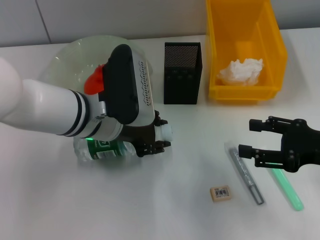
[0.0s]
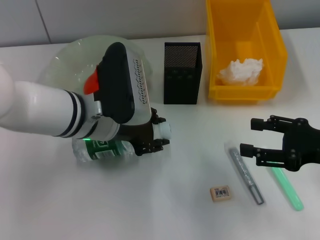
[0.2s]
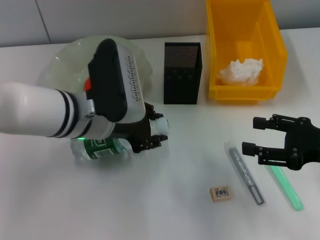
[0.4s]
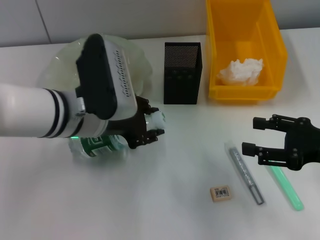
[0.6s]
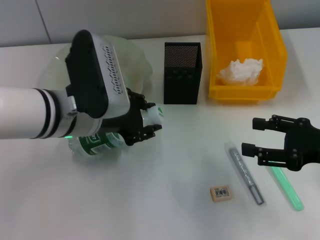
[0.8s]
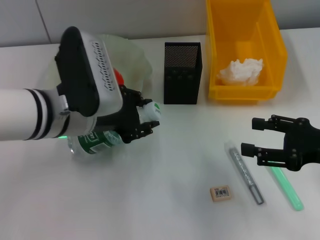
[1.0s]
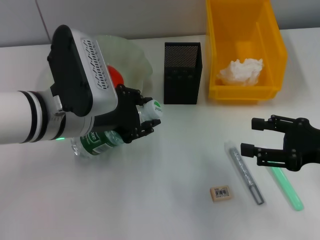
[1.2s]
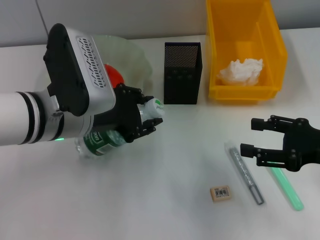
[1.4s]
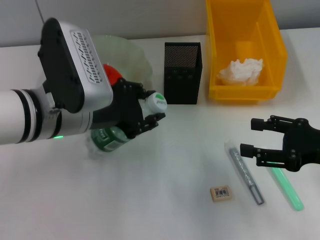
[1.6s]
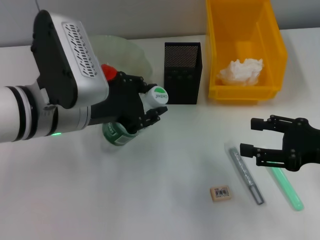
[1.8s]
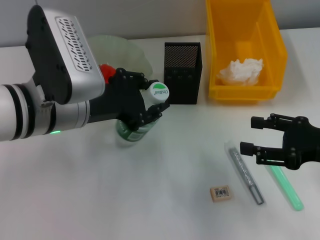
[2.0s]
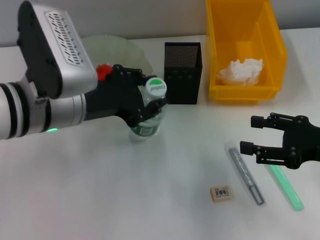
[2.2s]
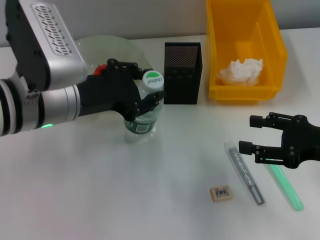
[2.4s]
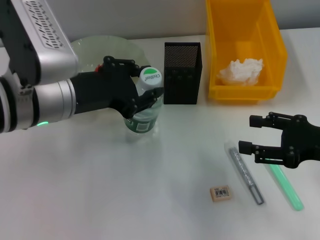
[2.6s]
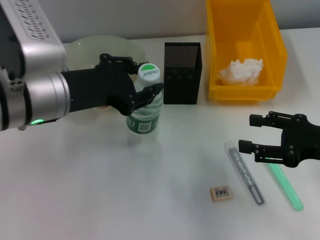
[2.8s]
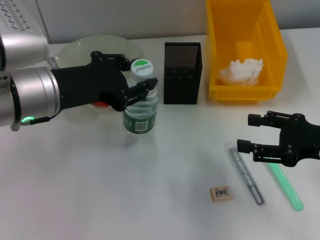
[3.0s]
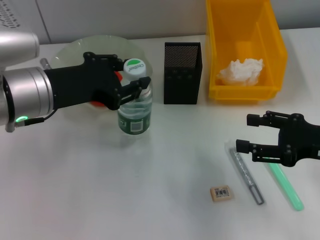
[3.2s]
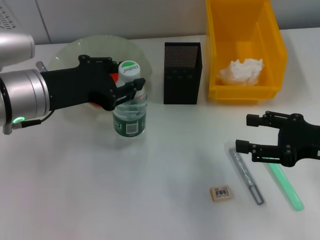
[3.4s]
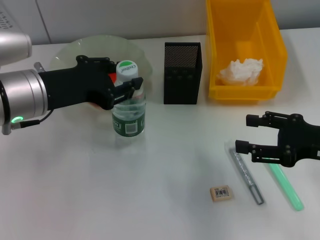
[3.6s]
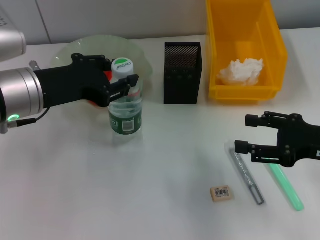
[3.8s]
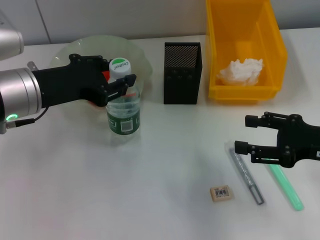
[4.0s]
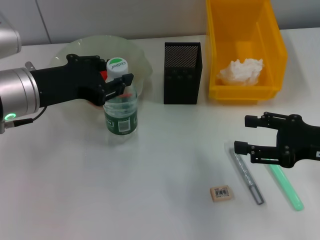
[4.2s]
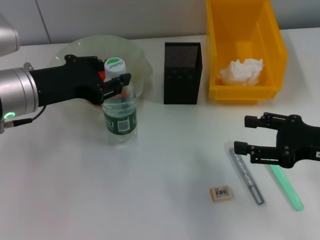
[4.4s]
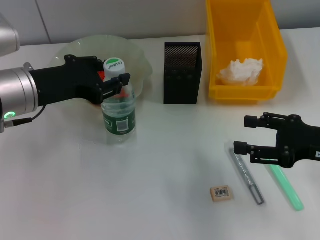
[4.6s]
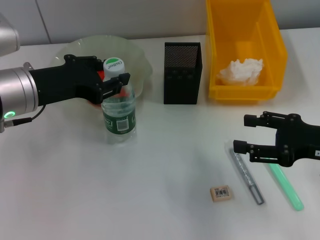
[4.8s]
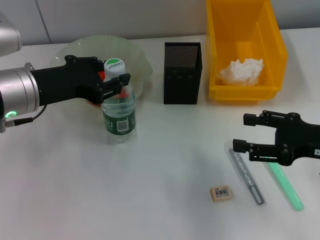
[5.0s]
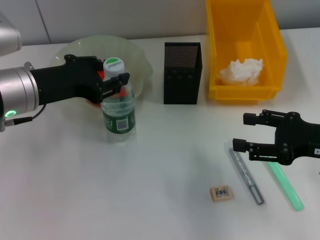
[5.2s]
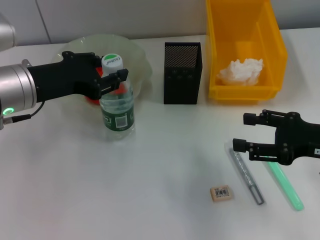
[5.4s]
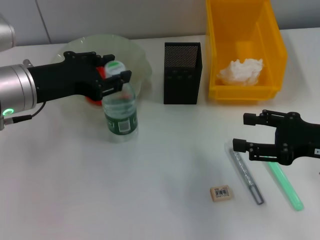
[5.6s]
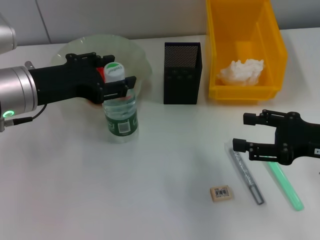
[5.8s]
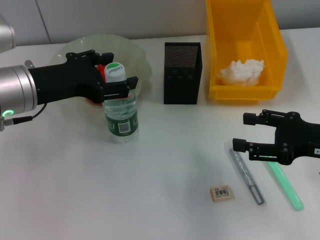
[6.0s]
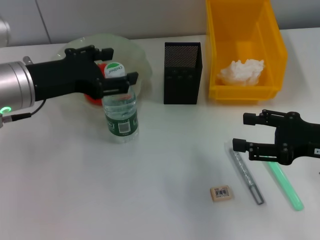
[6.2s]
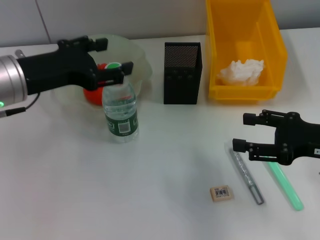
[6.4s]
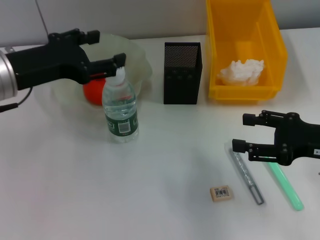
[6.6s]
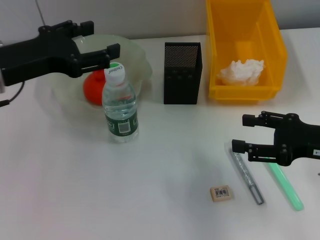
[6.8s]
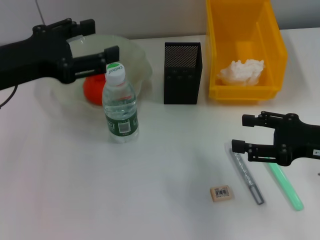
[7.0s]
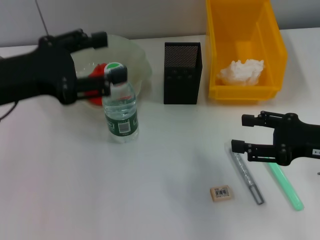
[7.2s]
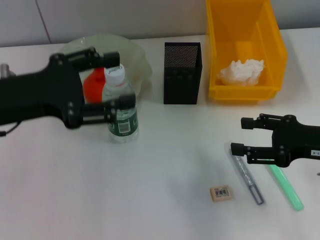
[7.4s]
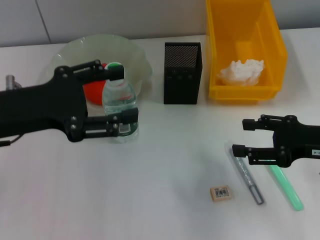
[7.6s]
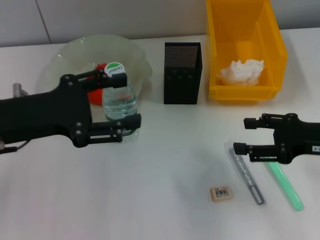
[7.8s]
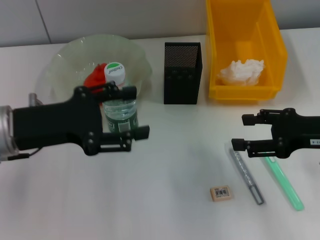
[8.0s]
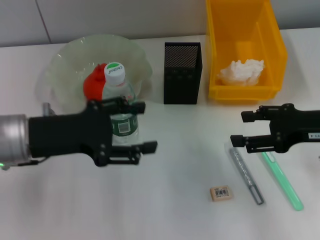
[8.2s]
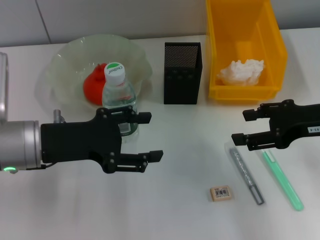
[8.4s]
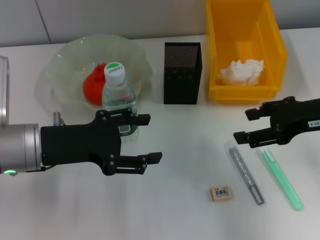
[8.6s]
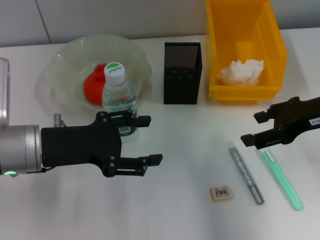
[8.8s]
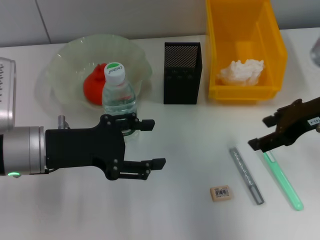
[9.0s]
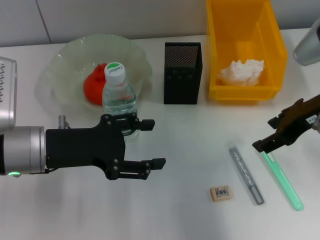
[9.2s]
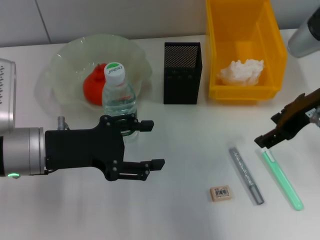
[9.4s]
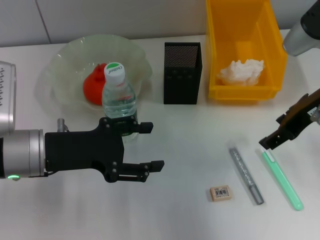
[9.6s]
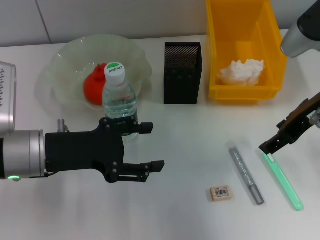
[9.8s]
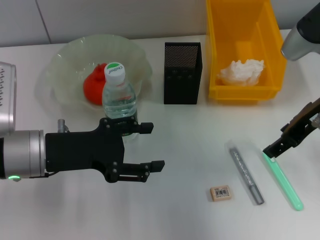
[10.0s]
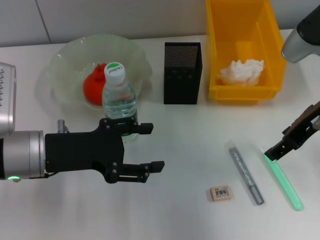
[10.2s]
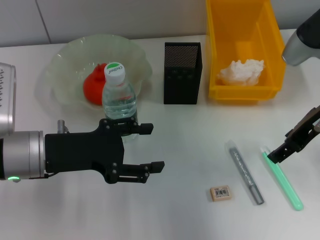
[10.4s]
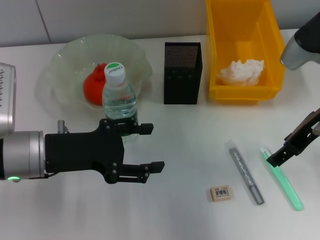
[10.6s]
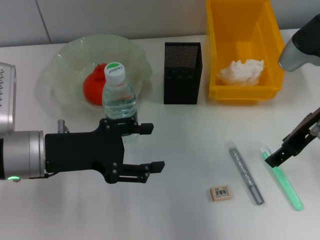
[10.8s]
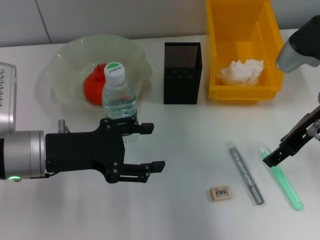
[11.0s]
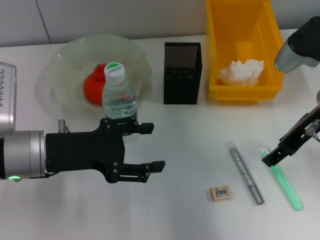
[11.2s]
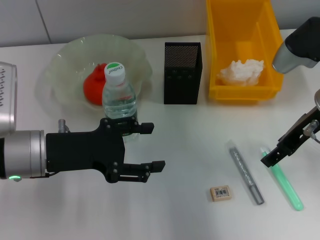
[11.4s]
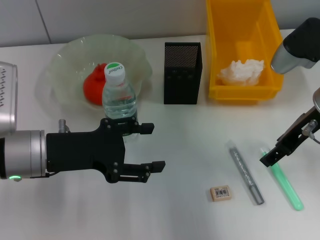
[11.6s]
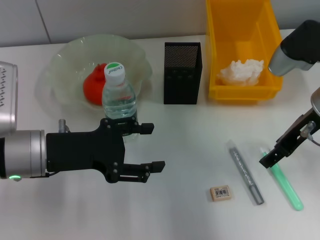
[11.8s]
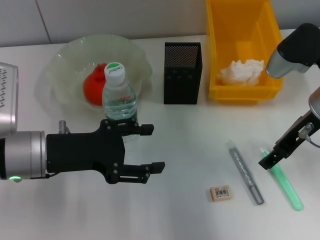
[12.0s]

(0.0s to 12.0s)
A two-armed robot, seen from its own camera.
Step, 0.0s - 6.4s: Place the water bottle on the table with the left hand.
0.0s - 1.6s: The left gripper ends up some 5 cm from where it was.
1.6s - 3.0s: There are only small adjustments of the grippers.
3.0s - 4.4s: There are only small adjustments of the grippers.
4.4s - 6.0s: The left gripper opens.
6.0s - 7.6s: The left gripper changes place by some 5 cm.
7.6s - 9.0s: The right gripper shifts roughly 10 cm upward and forward, while the left gripper goes roughly 5 cm downward.
9.0s - 10.4s: The grippers make only small movements.
10.4s - 12.0s: The grippers move only a little.

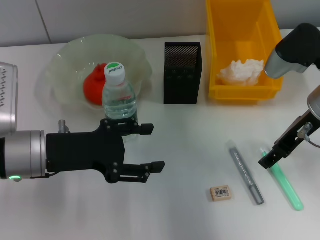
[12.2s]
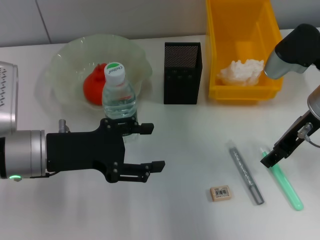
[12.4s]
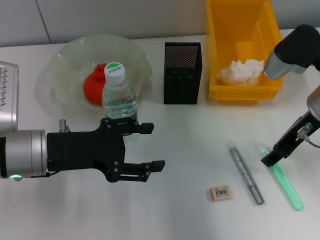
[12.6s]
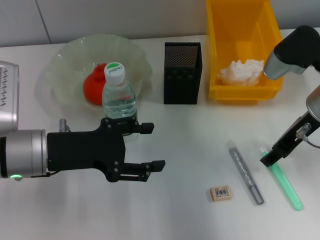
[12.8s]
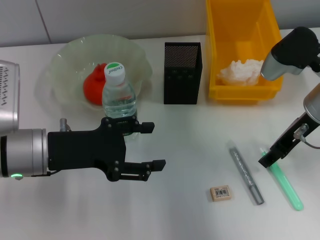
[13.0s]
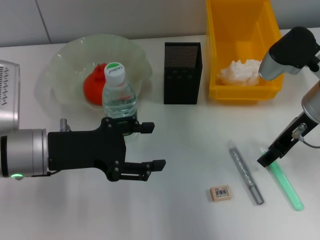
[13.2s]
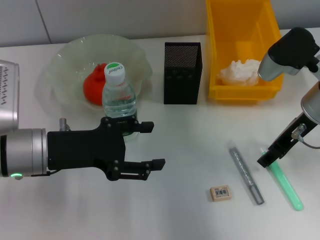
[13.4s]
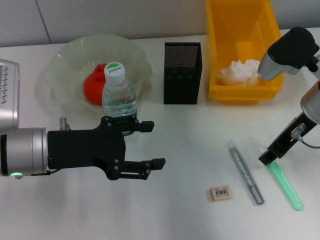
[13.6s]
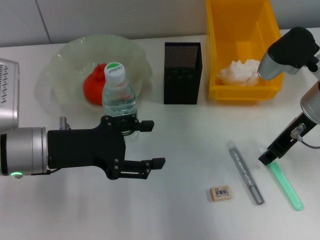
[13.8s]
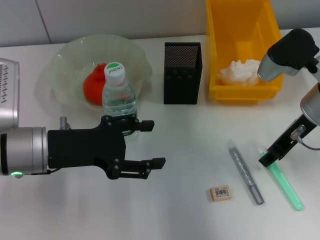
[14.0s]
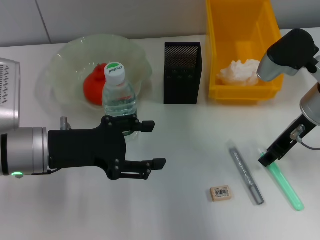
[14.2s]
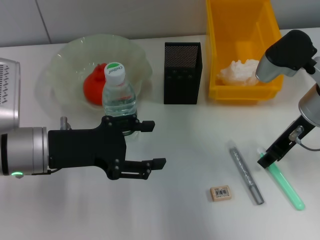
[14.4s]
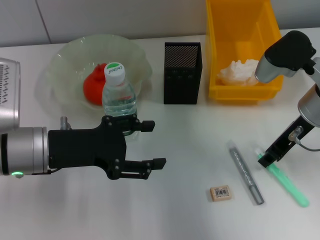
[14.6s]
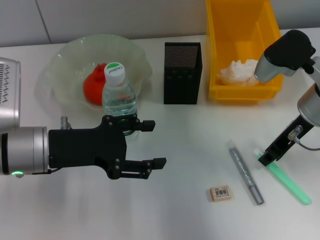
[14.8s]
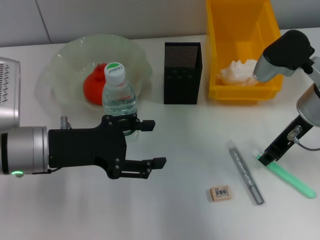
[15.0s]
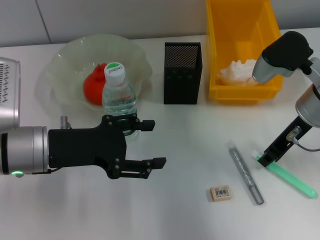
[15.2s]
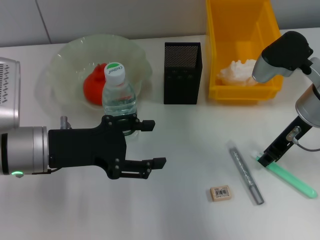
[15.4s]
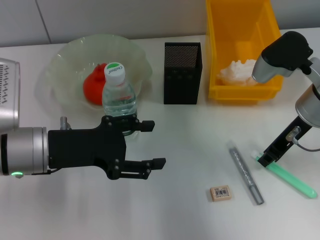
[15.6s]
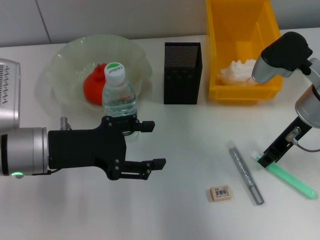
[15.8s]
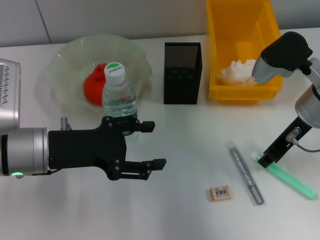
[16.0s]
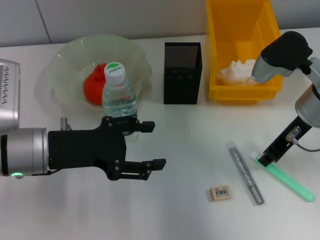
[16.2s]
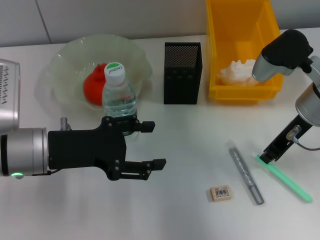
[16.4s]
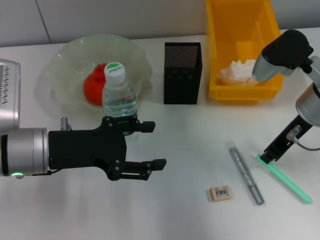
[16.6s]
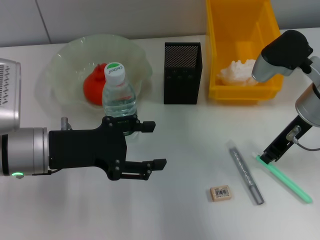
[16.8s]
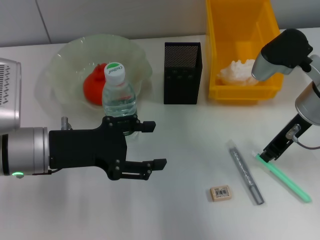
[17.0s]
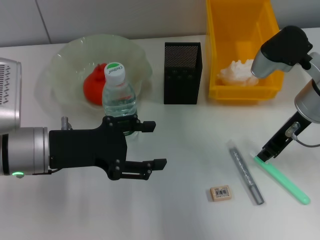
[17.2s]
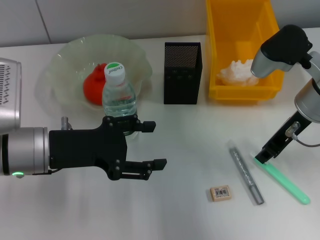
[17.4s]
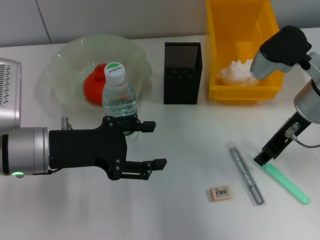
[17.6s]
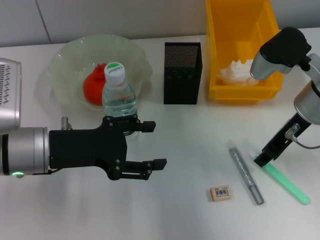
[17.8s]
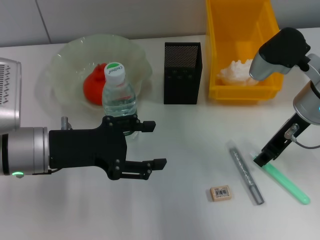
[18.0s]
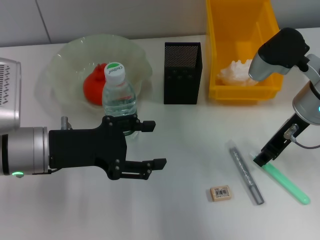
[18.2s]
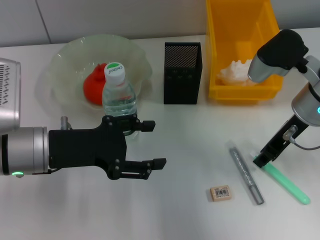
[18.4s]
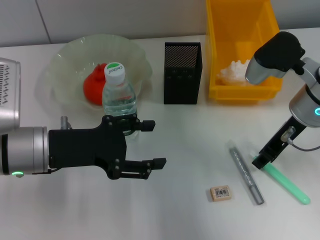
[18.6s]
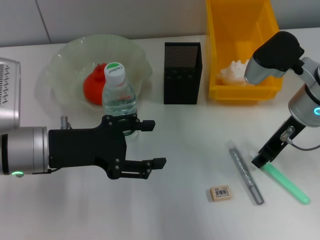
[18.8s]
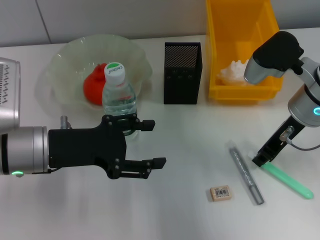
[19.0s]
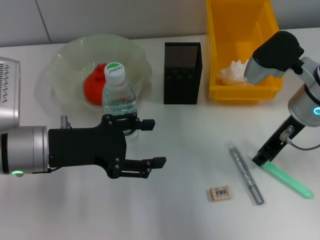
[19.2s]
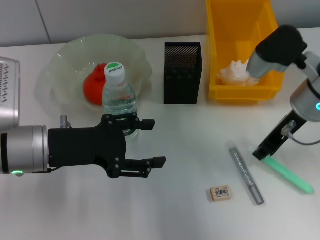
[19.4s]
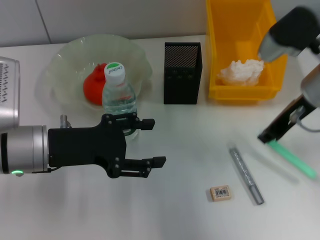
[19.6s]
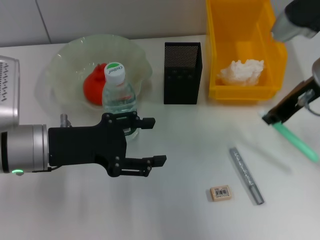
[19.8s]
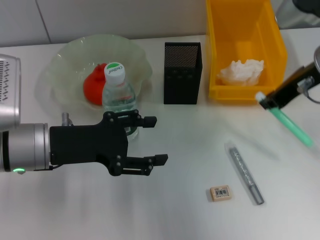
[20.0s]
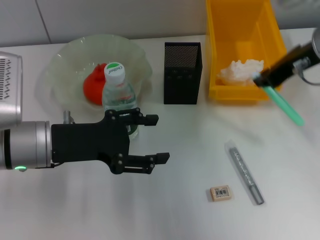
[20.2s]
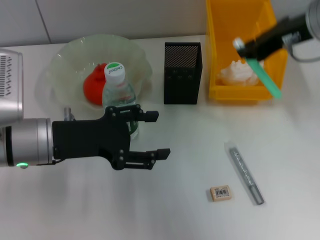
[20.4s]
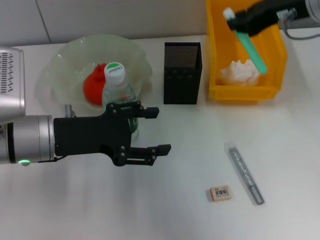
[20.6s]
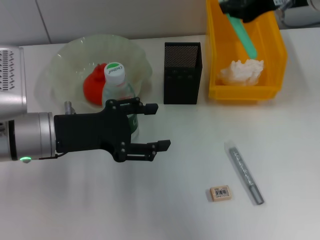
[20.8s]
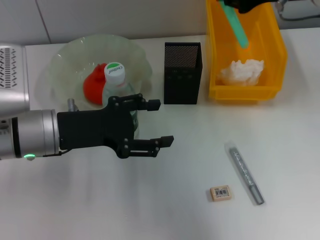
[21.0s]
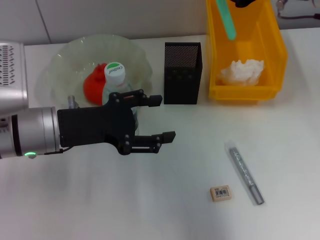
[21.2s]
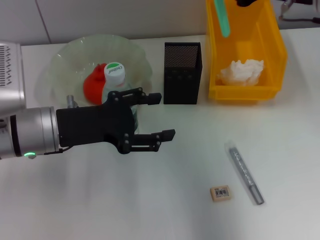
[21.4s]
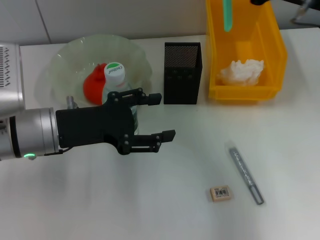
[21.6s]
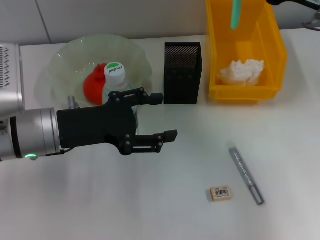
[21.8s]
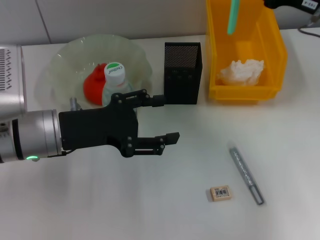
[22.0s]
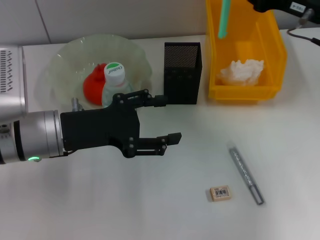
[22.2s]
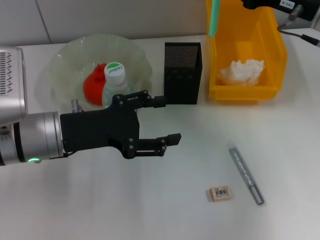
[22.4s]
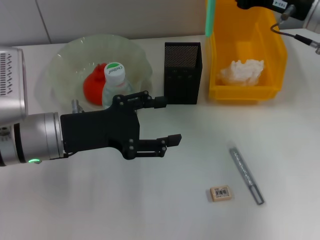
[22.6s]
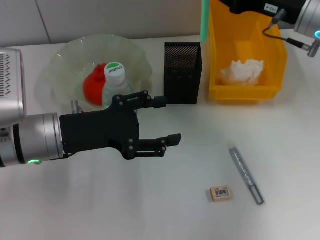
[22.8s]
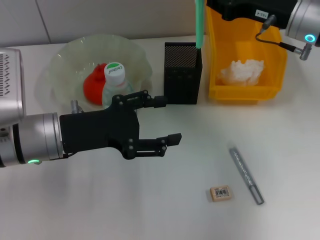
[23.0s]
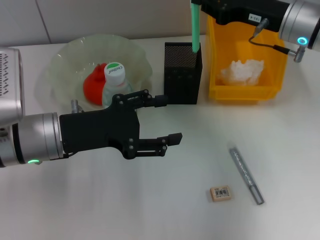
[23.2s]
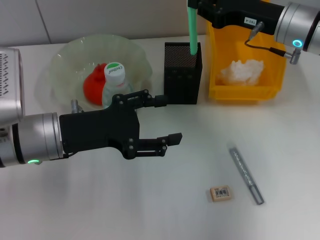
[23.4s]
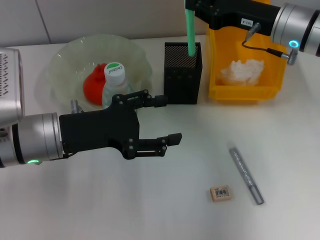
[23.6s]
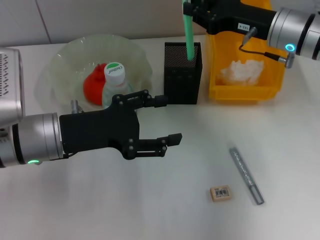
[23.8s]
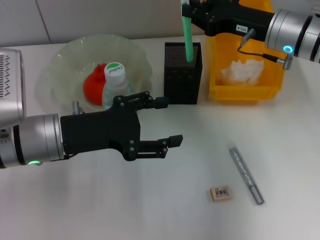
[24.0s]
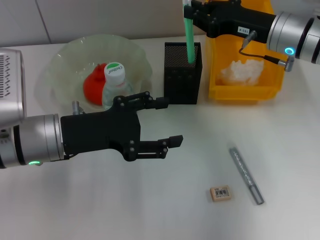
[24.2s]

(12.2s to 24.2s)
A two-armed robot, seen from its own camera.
Step, 12.2s - 19.2s: Grab the blue utility knife with the right hand.
12.2s - 13.8s: The right gripper closes its fingers.
13.8s - 18.2s: Both grippers stay about where they are.
18.2s - 19.8s: The right gripper moves about 5 cm.
19.8s - 21.2s: The right gripper shifts roughly 5 cm upward.
21.2s - 22.6s: The right gripper is displaced downward by approximately 5 cm.
22.6s - 24.2s: The right gripper changes place by some 5 cm.
